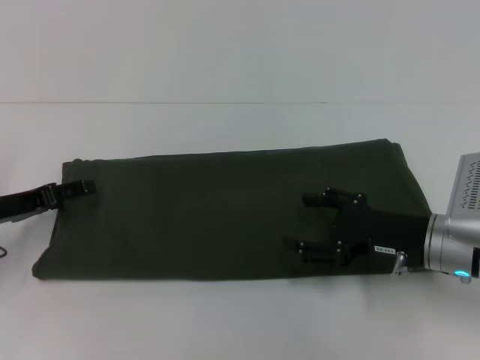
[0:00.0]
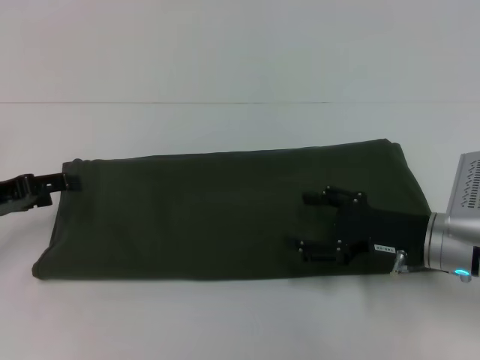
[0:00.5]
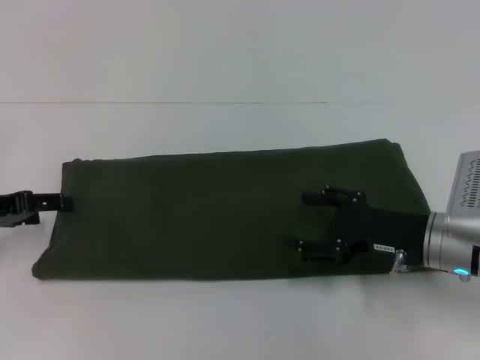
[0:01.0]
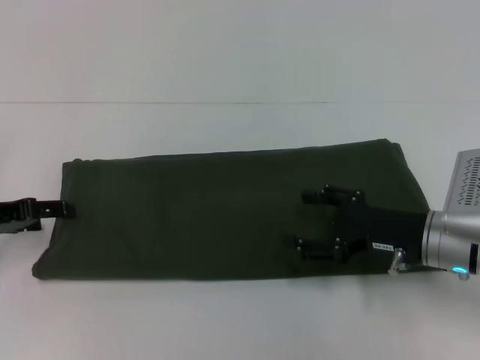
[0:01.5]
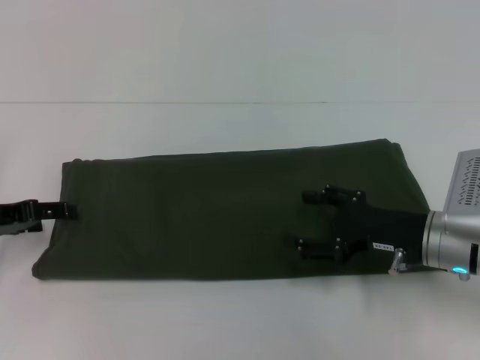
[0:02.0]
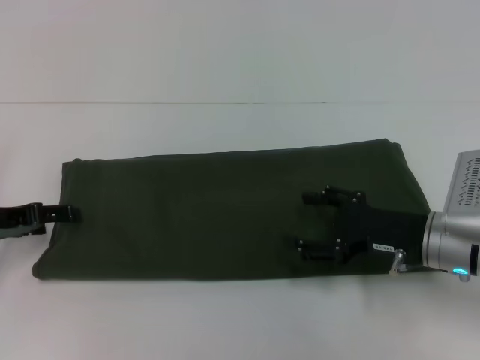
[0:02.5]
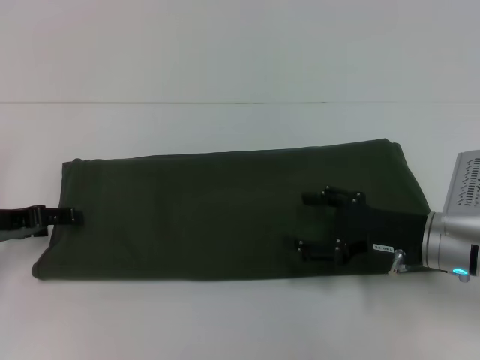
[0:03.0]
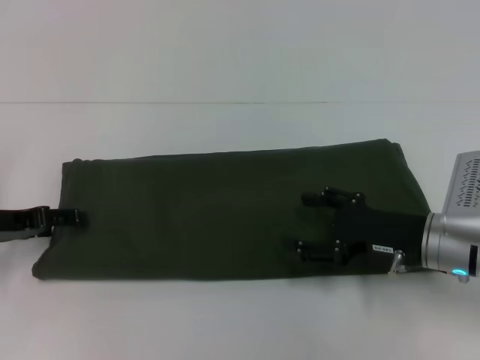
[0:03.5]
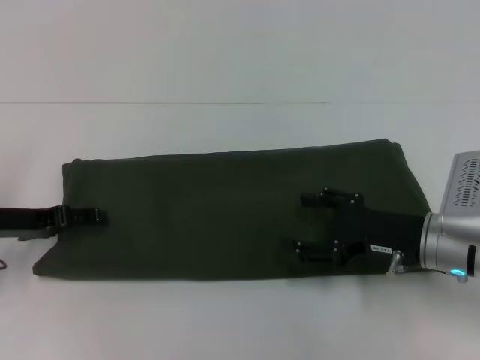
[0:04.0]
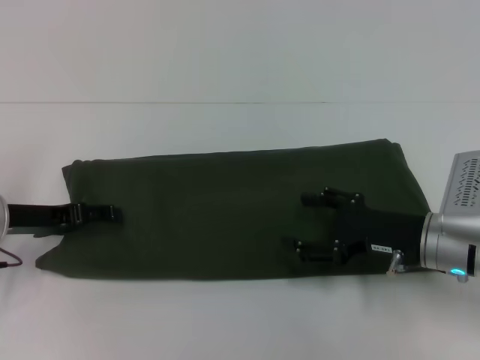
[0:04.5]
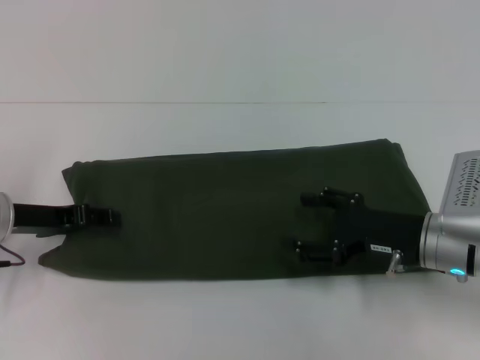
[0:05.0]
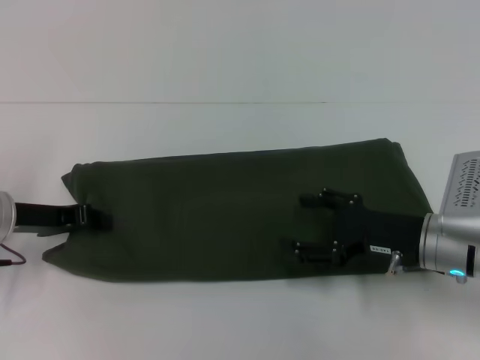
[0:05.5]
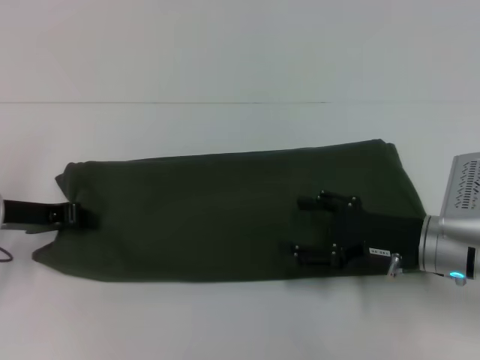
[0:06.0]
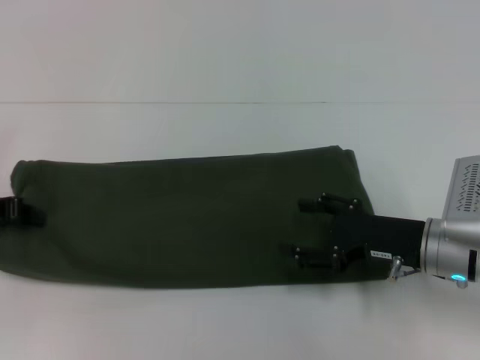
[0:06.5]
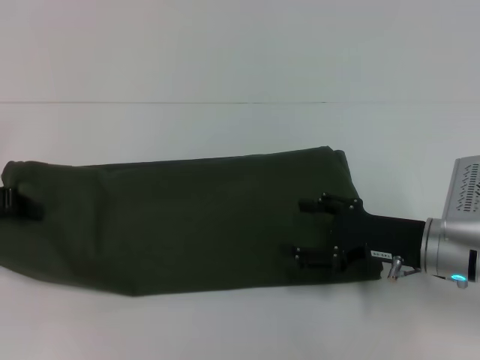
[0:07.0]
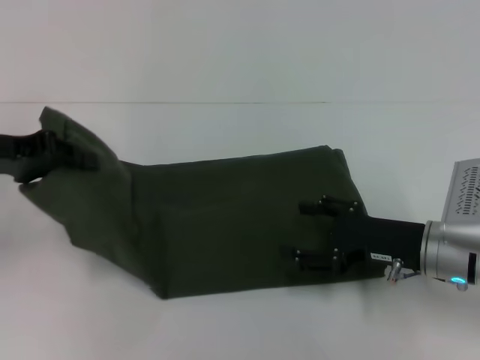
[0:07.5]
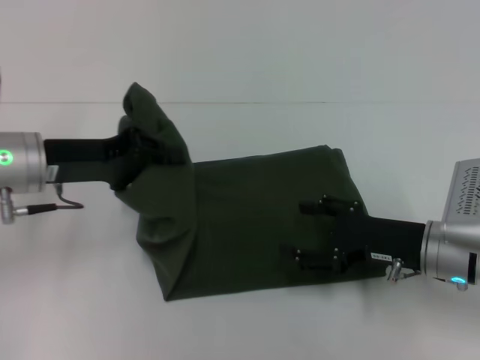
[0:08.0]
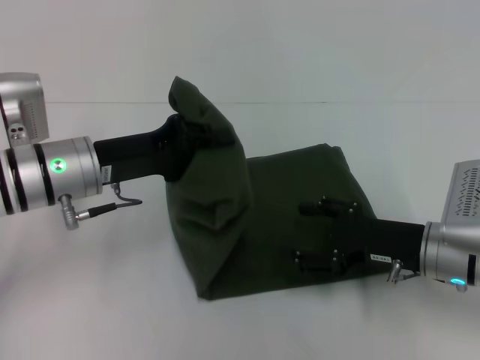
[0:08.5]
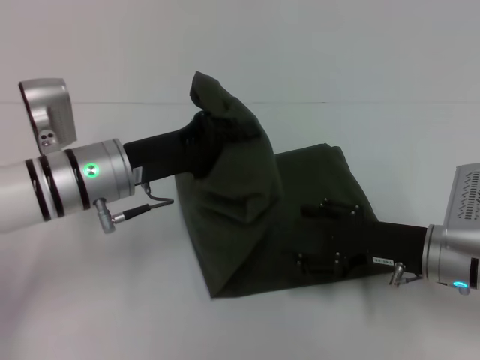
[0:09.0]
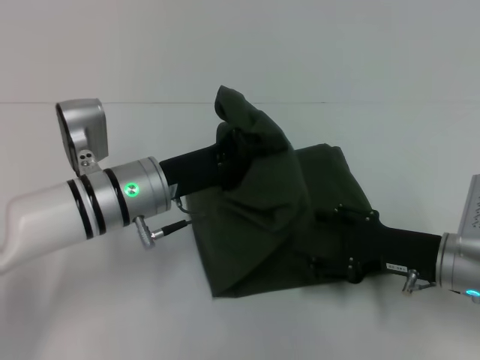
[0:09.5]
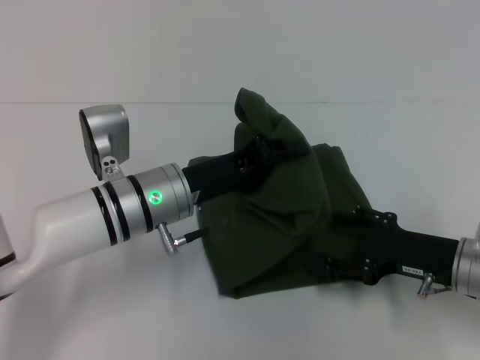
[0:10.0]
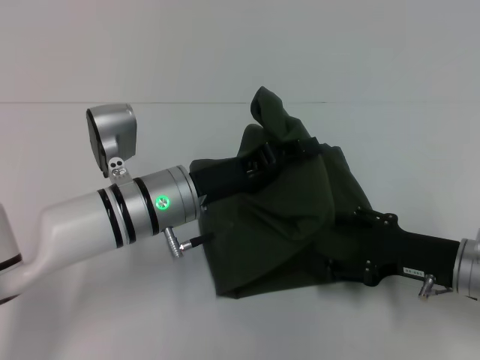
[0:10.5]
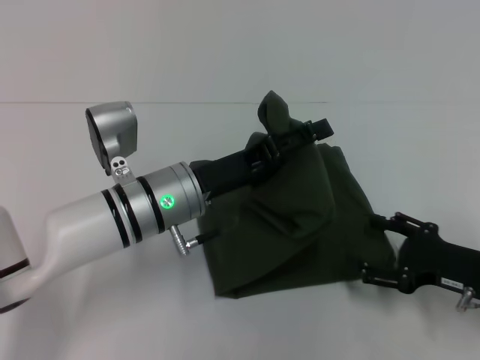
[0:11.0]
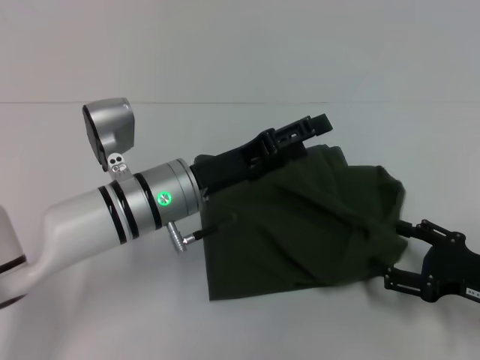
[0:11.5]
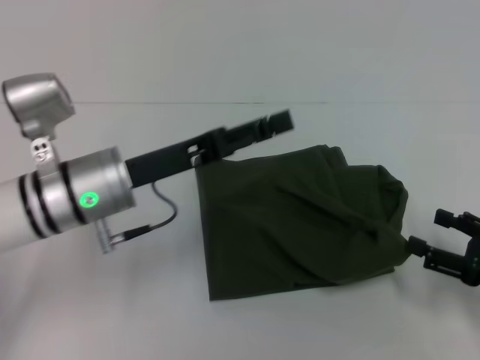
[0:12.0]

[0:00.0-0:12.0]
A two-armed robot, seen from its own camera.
0:00.0 to 0:04.0: The grippers stay close to where they were, moving slightly.
0:04.0 to 0:06.0: The left gripper closes.
0:06.0 to 0:08.0: The left gripper moves to the right and upward, roughly 10 cm.
0:08.0 to 0:10.0: The left gripper goes approximately 15 cm to the right.
0:10.0 to 0:12.0: The left gripper moves some 5 cm, and opens, while the right gripper shifts roughly 10 cm to the right and backward.

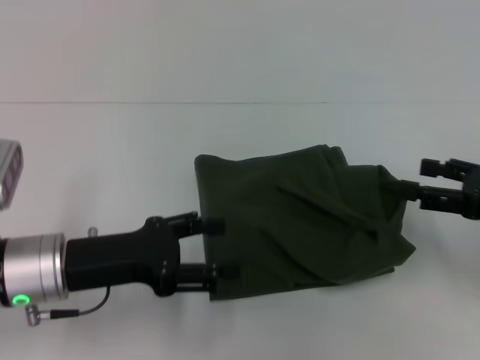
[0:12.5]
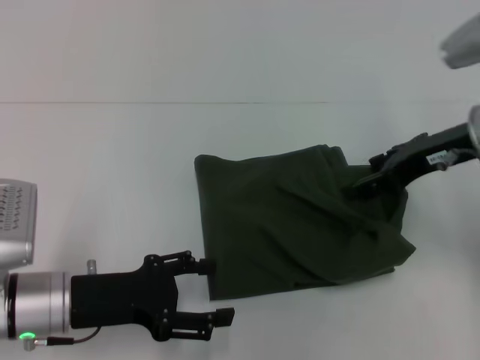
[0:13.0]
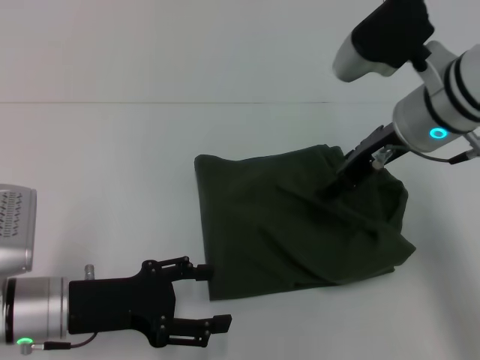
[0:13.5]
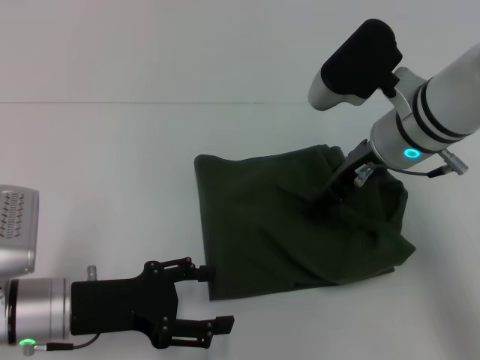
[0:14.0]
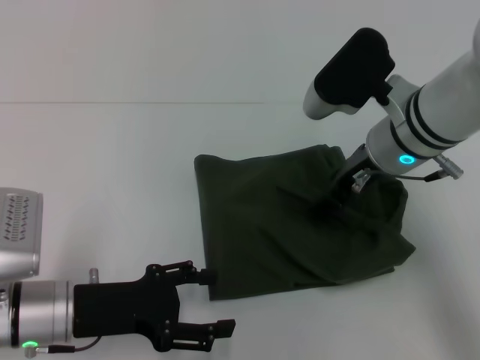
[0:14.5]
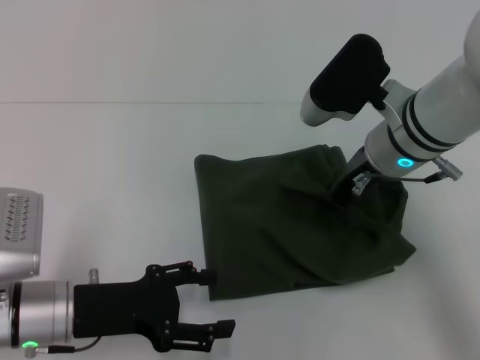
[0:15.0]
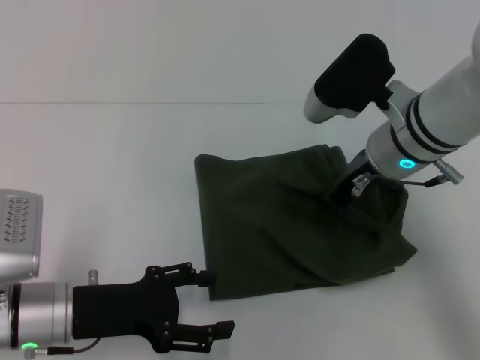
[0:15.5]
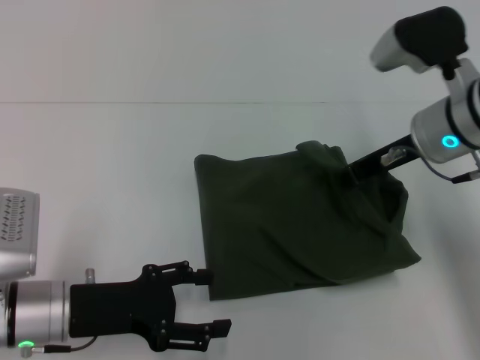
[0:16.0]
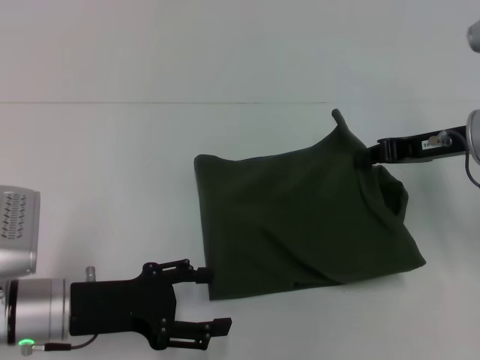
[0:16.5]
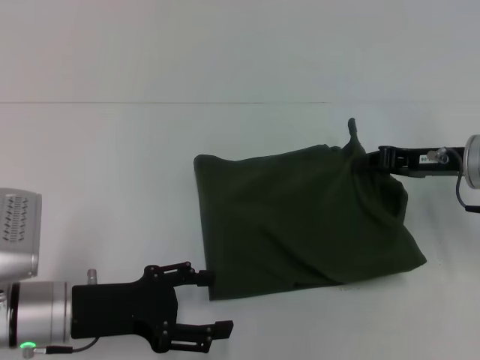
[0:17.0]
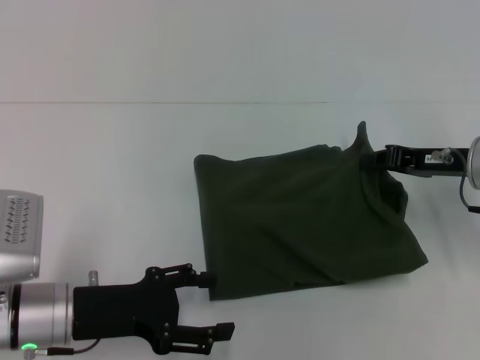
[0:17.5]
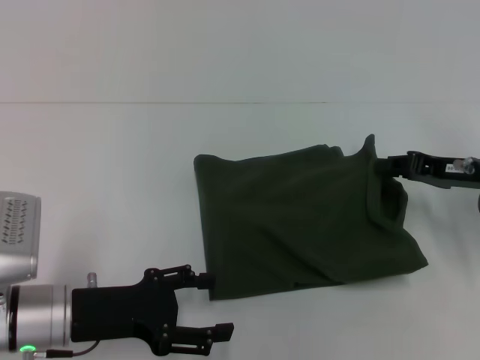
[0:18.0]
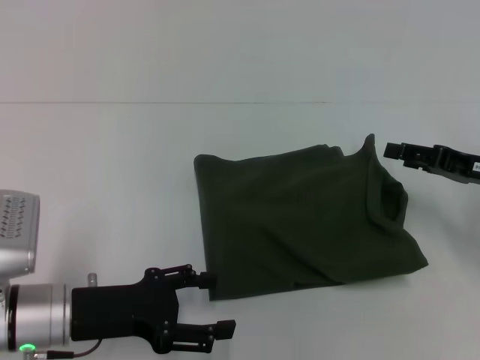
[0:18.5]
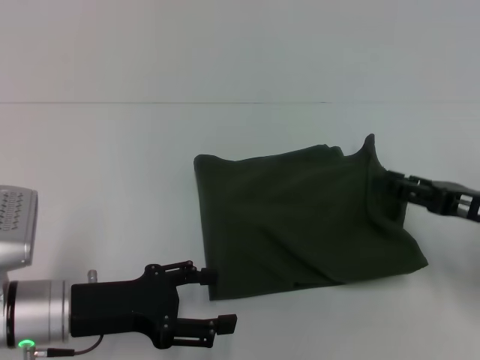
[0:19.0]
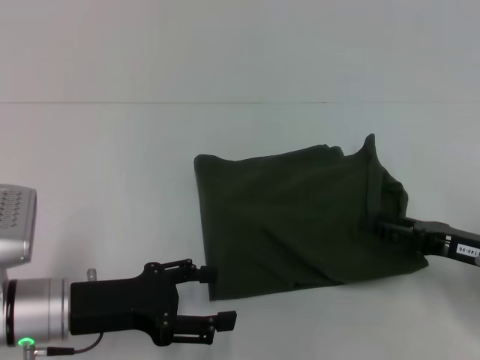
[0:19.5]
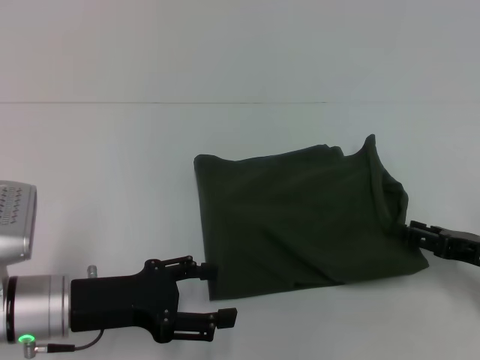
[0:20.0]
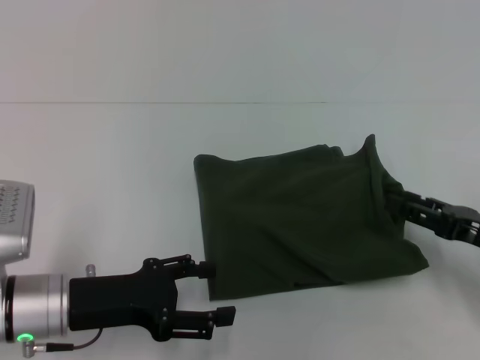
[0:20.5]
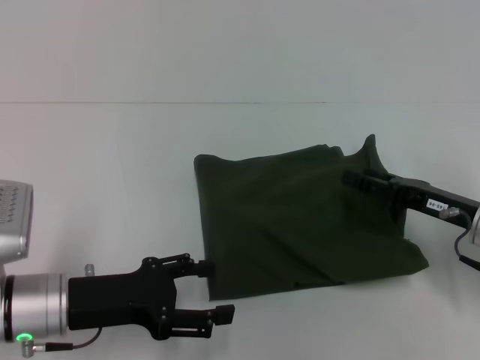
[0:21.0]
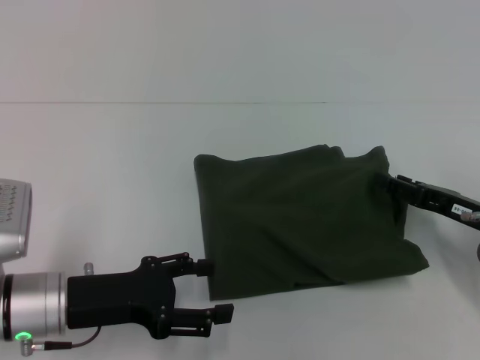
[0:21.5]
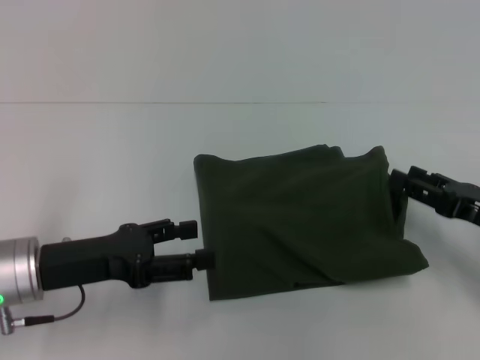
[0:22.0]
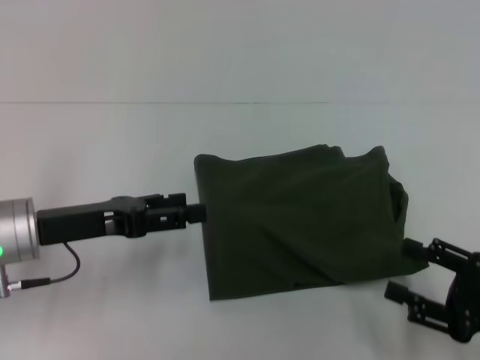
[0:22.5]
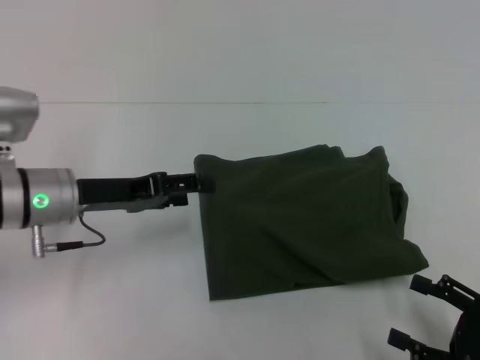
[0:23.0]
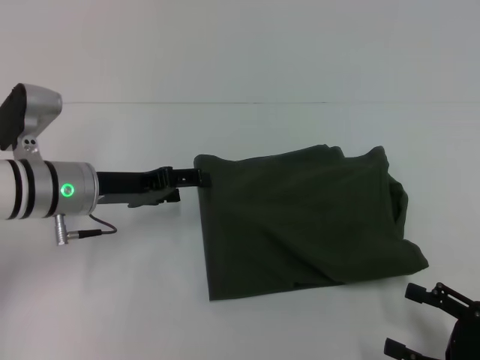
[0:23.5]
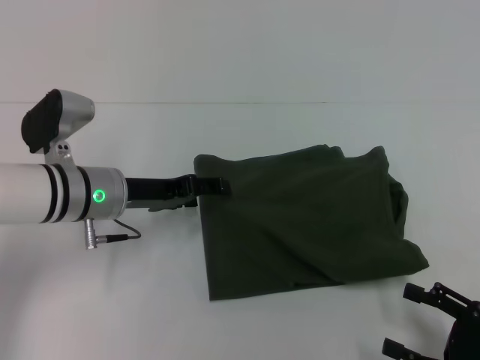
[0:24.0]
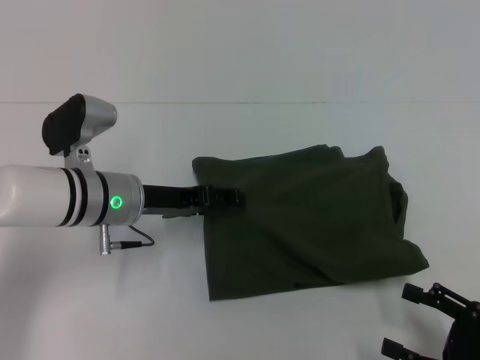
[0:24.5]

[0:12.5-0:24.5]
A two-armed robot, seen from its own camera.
0:12.5 to 0:14.5: The right gripper is displaced to the left and forward by approximately 20 cm.
0:14.5 to 0:16.5: The right gripper travels to the right by some 10 cm, and closes up.
0:16.5 to 0:18.5: The right gripper shifts about 10 cm to the right and downward, and opens its fingers.
0:18.5 to 0:20.5: The right gripper goes some 5 cm backward.
0:20.5 to 0:22.5: The left gripper changes place by roughly 5 cm. Meanwhile the right gripper is displaced backward by roughly 5 cm.
0:22.5 to 0:24.5: The left gripper heads to the right and forward, covering approximately 10 cm.

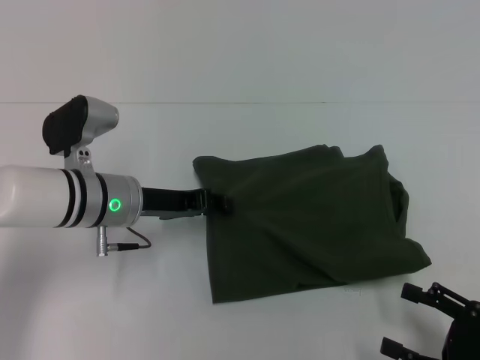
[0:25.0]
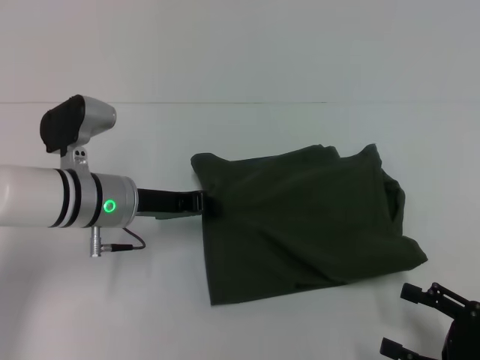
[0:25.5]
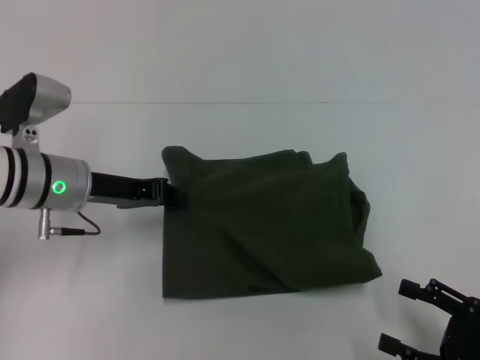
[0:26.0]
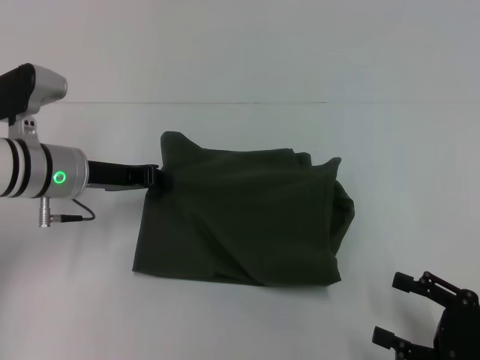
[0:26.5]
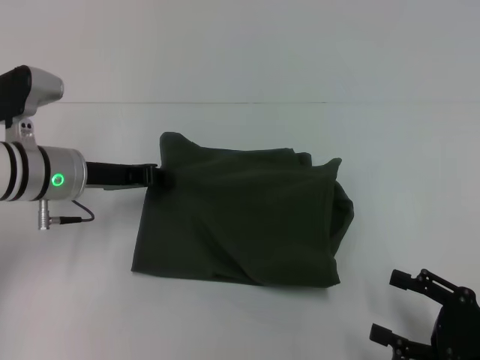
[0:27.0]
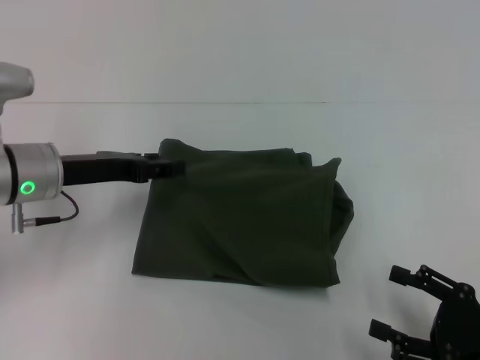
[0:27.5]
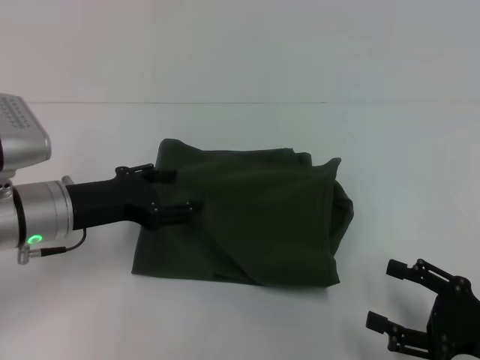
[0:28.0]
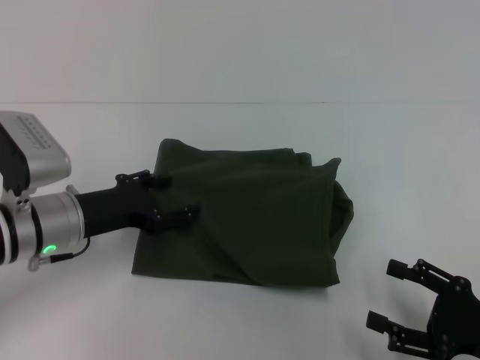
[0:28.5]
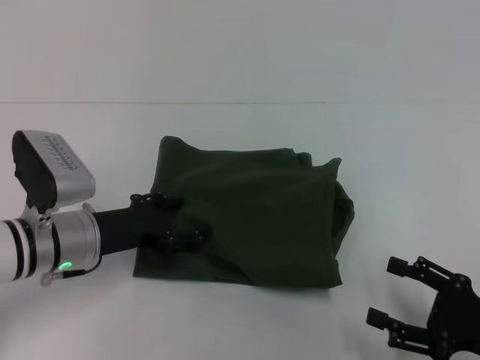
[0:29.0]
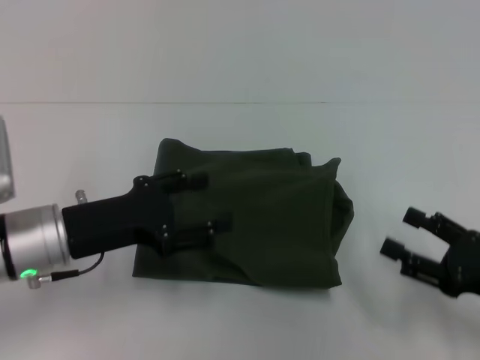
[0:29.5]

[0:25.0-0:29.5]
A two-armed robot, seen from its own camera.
0:25.0 to 0:27.0: The left gripper shifts some 5 cm to the left, and closes up.
0:27.0 to 0:29.5: The left gripper travels backward by approximately 10 cm, and opens its fingers.
